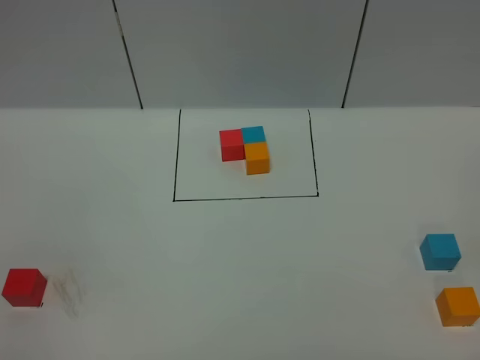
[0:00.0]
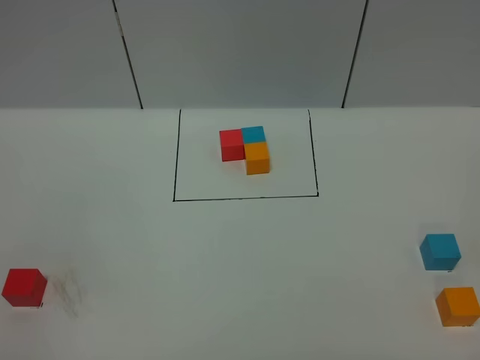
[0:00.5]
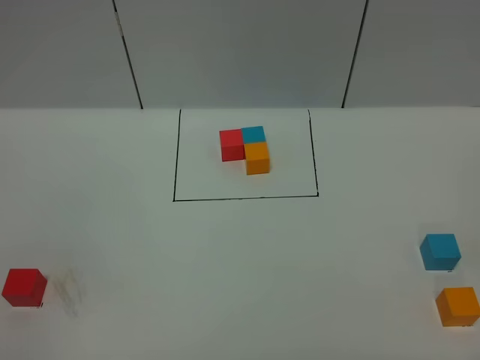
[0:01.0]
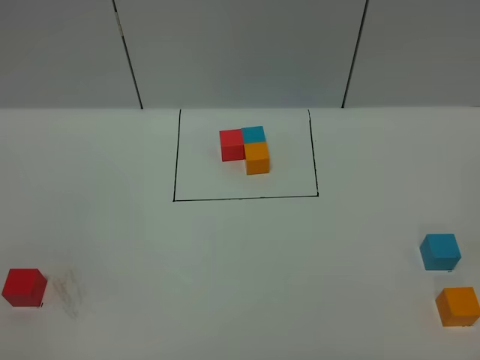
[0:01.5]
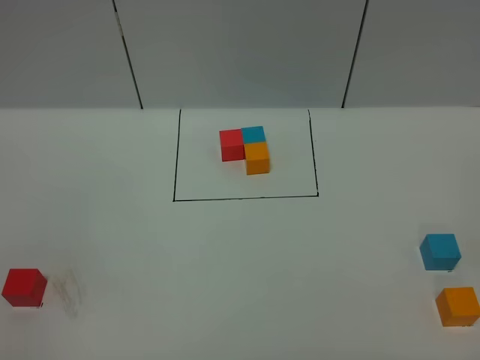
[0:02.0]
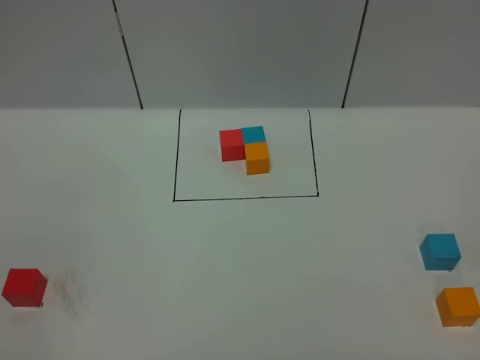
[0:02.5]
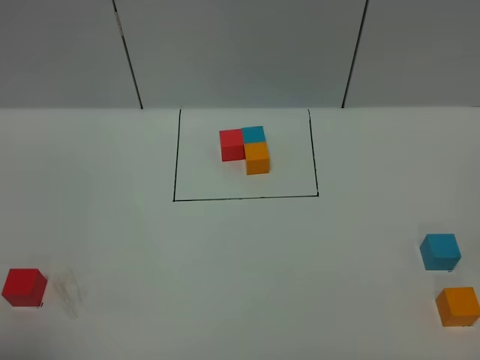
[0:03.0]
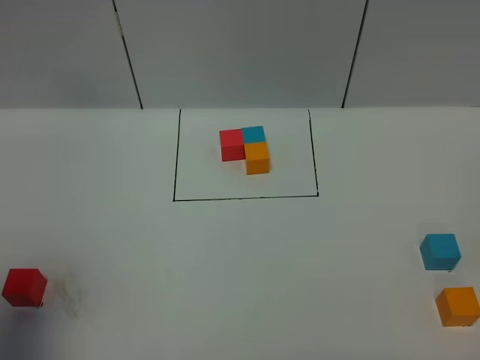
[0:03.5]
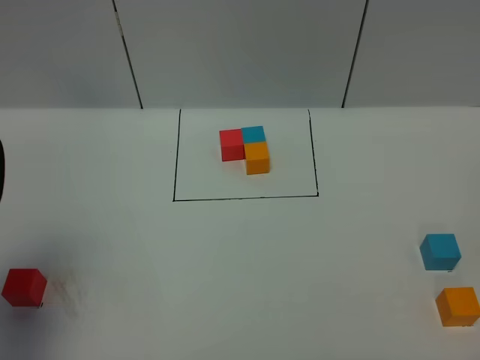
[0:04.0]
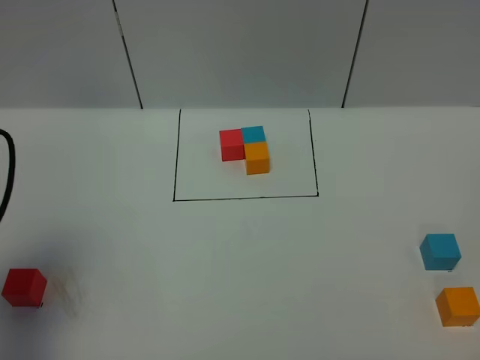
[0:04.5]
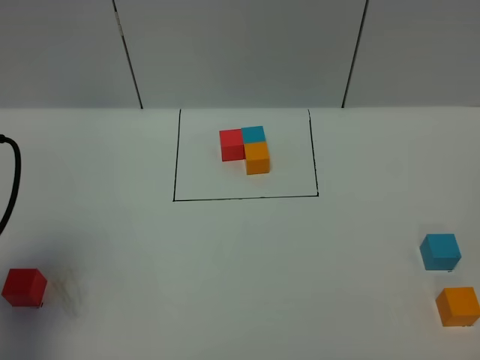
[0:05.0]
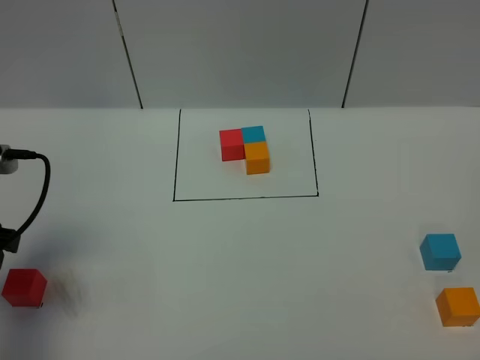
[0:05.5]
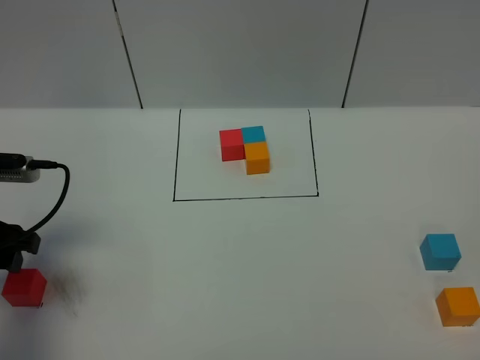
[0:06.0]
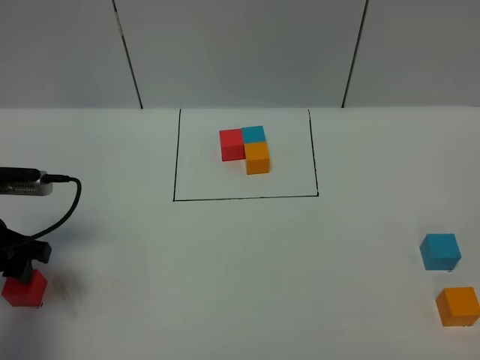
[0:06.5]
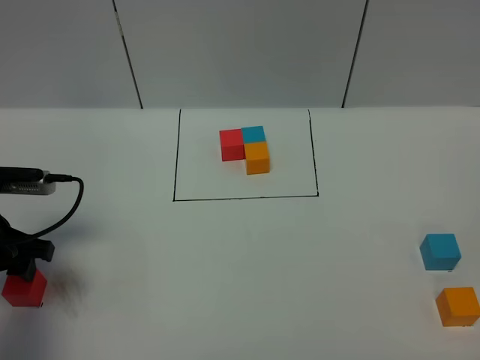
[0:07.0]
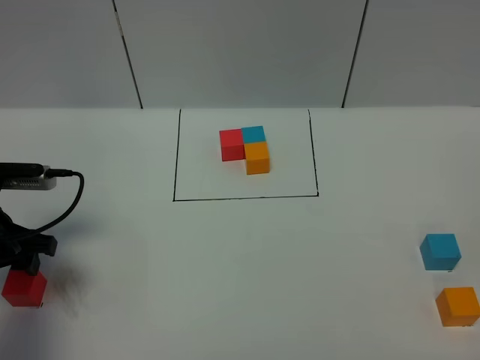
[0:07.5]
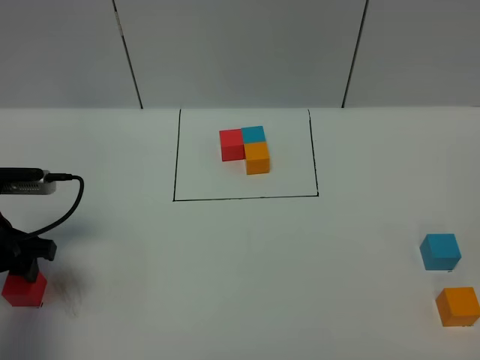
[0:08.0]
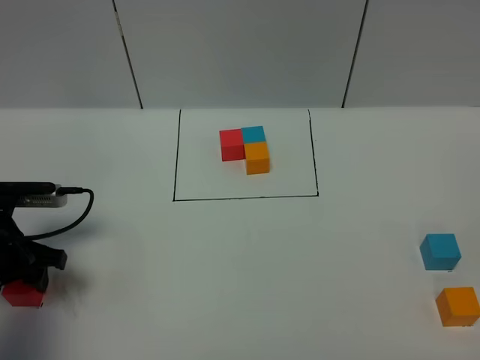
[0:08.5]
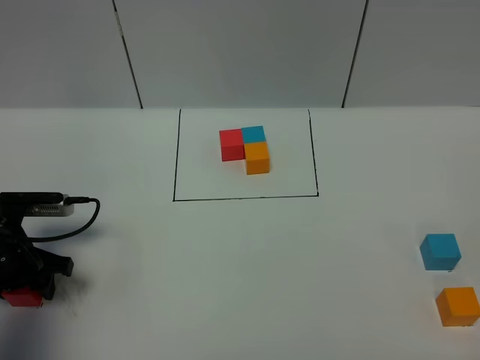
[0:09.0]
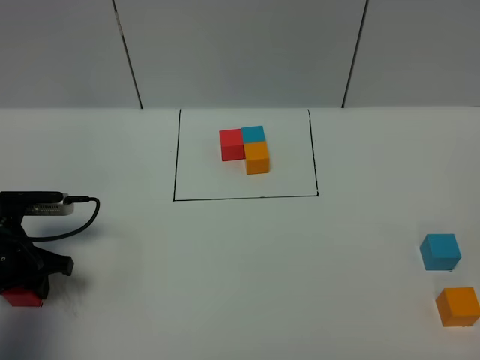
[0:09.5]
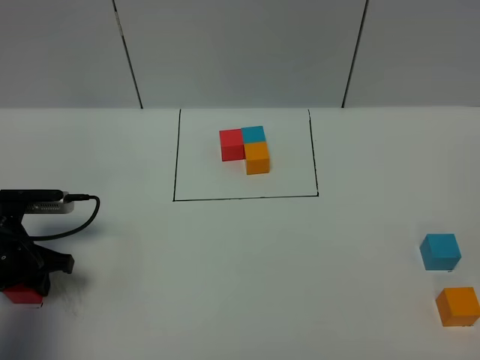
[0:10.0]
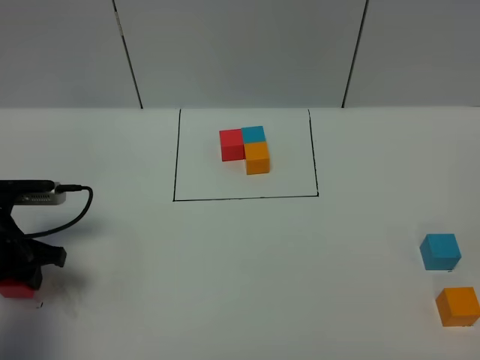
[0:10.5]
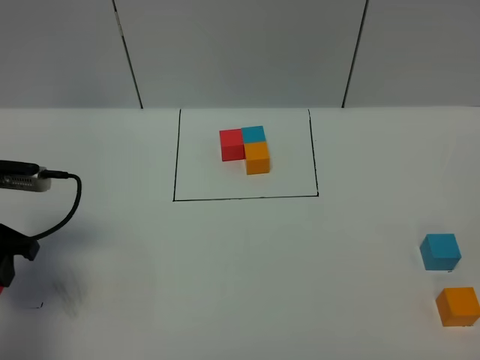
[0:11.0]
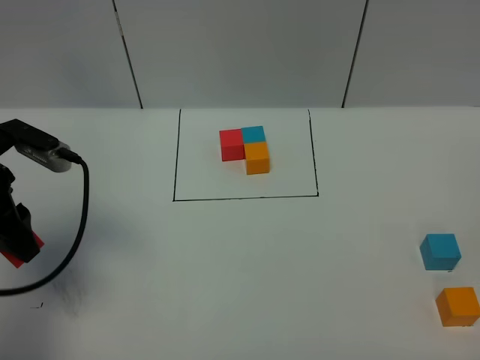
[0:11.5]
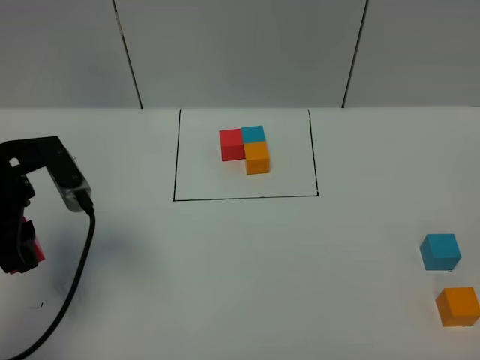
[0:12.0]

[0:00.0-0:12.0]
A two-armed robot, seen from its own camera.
Task of the whole recording: According to the building block template in front, assemble the scattered blocks together.
0:00.0 to 0:02.0: Both grippers stay put.
0:02.0 to 0:04.0: The left gripper is displaced forward by roughly 20 cm.
0:04.0 to 0:06.0: The left gripper shifts roughly 15 cm downward and forward.
0:06.0 to 0:08.0: The grippers stay close to where they were, moving slightly.
0:08.0 to 0:10.0: The left gripper moves downward, some 5 cm, and closes.
0:10.0 to 0:12.0: The left gripper goes roughly 15 cm upward.

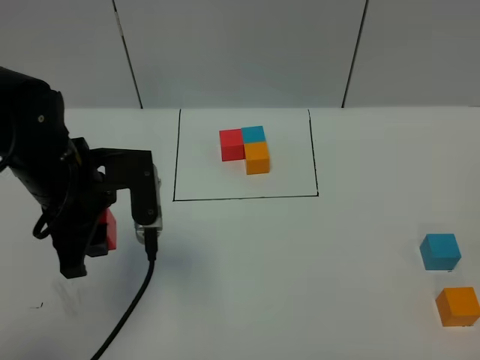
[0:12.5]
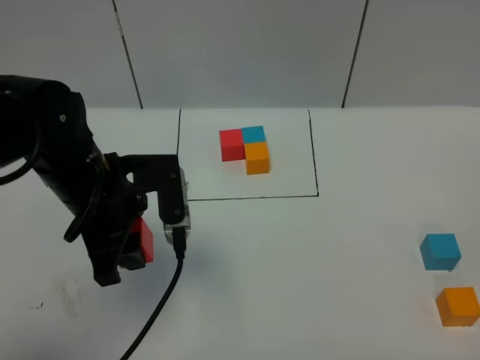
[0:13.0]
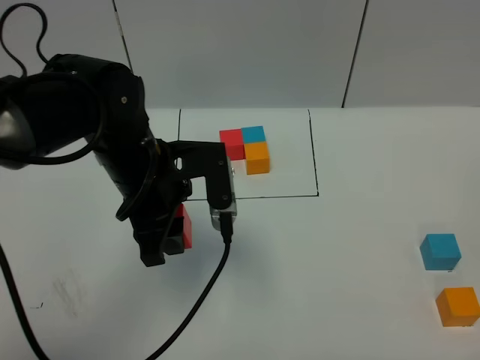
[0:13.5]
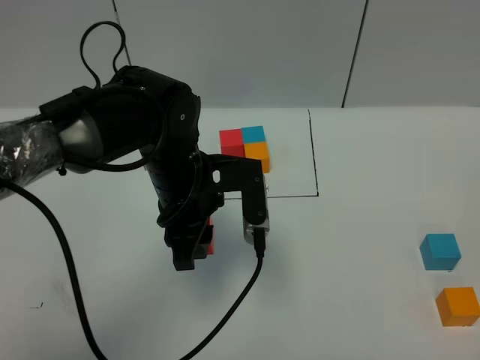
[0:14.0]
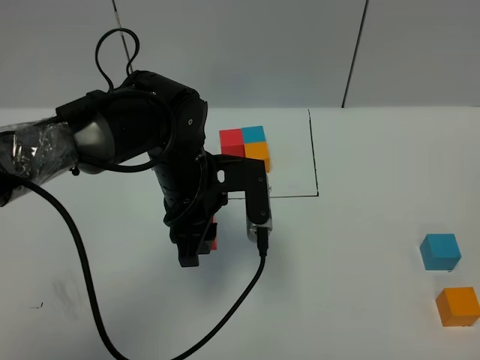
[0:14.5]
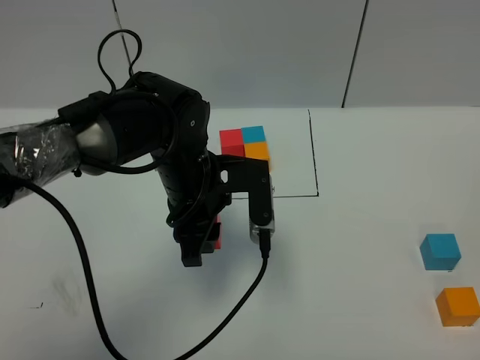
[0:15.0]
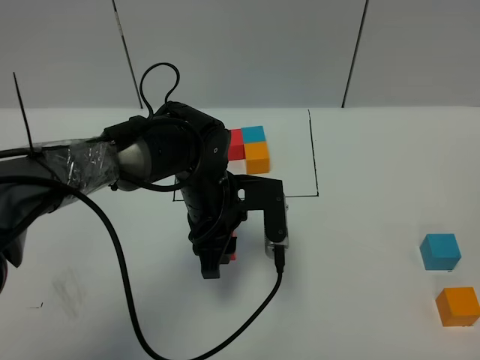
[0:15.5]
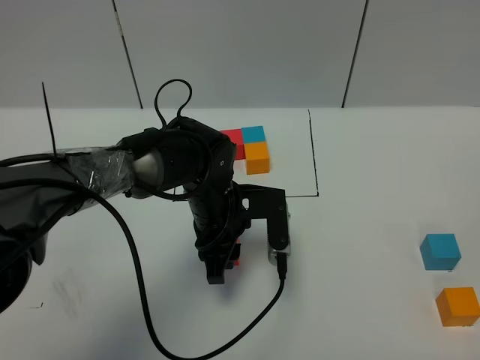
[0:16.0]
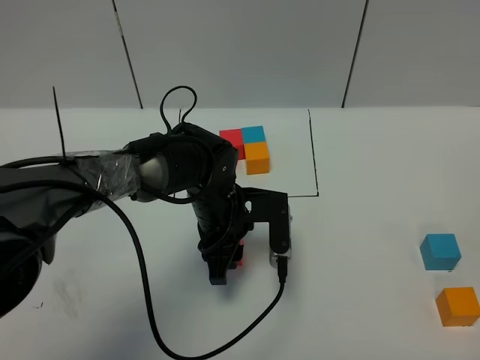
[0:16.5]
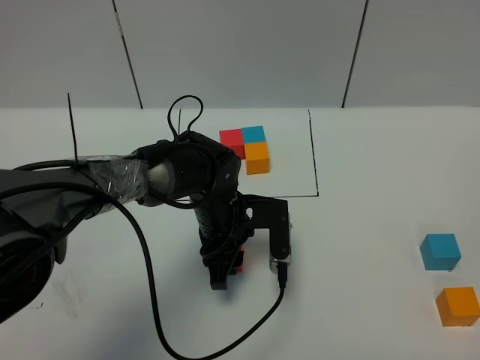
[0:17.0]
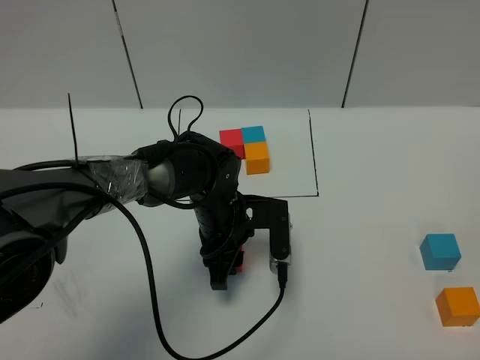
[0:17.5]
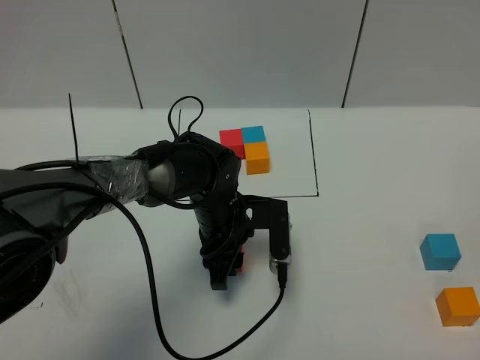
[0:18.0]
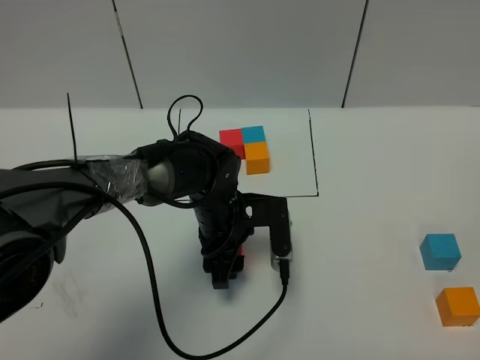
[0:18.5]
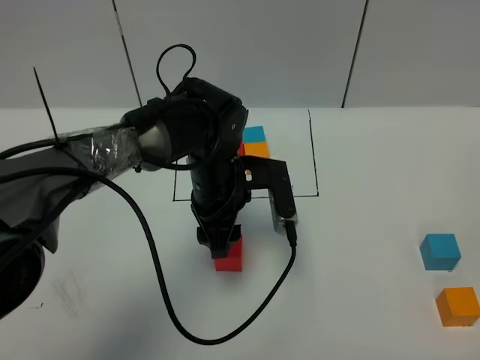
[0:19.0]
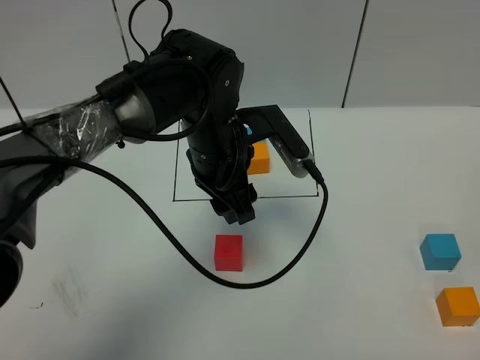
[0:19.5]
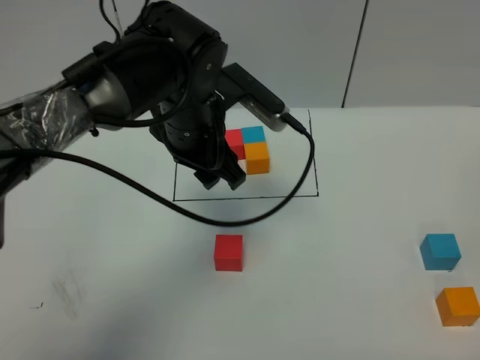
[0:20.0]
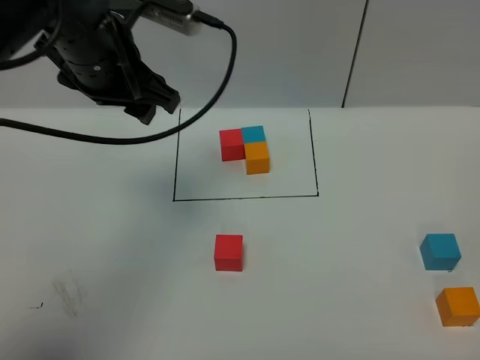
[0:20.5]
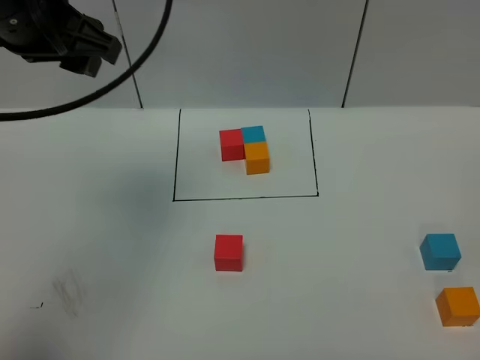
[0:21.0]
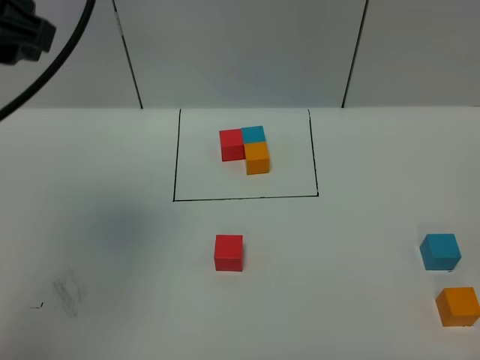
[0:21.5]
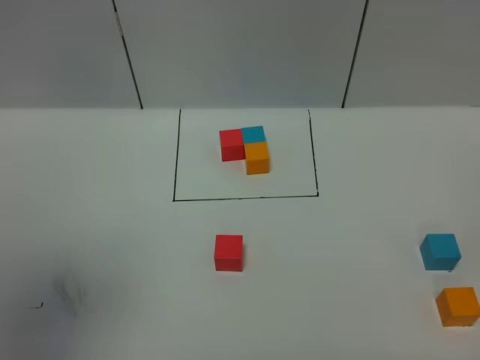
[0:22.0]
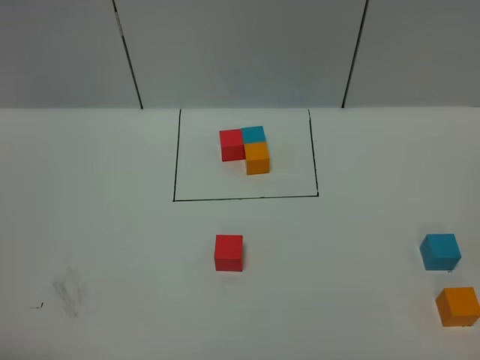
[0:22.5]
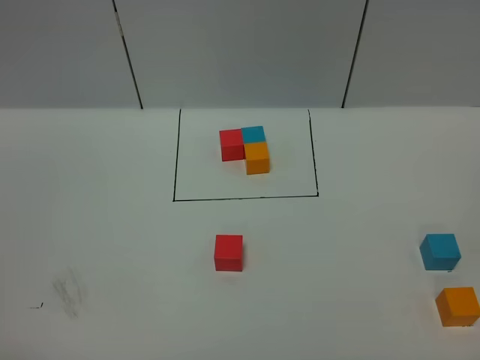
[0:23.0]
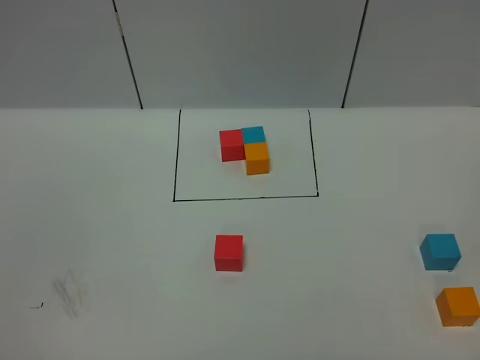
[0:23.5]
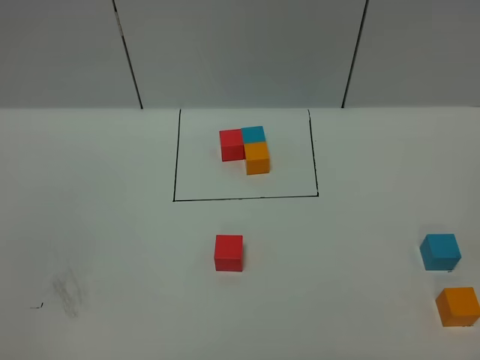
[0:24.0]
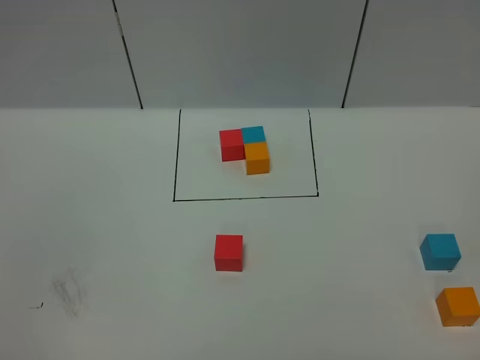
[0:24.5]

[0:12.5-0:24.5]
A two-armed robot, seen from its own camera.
Task of the whole recording: According to the building block template in front, assemble the scattered blocks together.
Step, 0:12.5 to 0:18.5: Put the red cube in the center of the table.
0:12.5 to 0:14.5: The left gripper goes roughly 10 cm to the right.
0:14.5 to 0:16.5: The left gripper goes roughly 10 cm downward.
0:16.5 to 0:18.5: The left gripper opens up.
0:18.5 to 0:20.5: The left gripper shifts about 25 cm upward and to the left.
0:20.5 to 0:22.5: The left gripper goes roughly 40 cm backward and to the left.

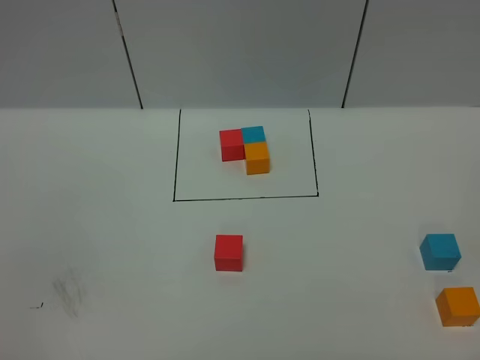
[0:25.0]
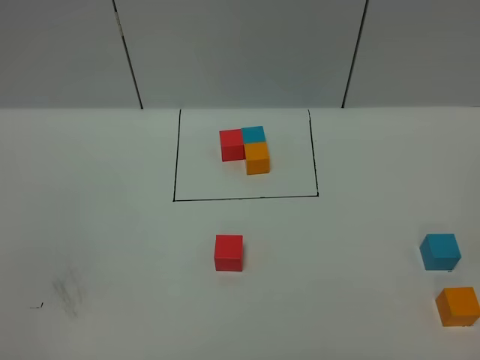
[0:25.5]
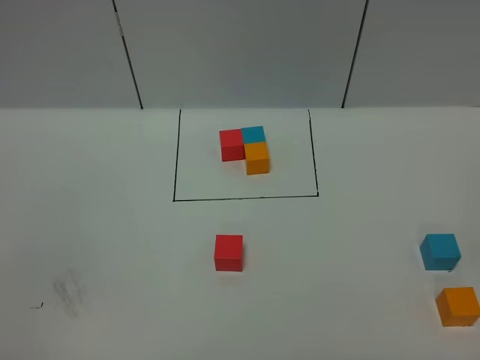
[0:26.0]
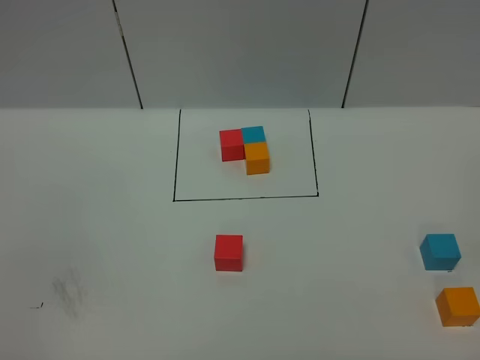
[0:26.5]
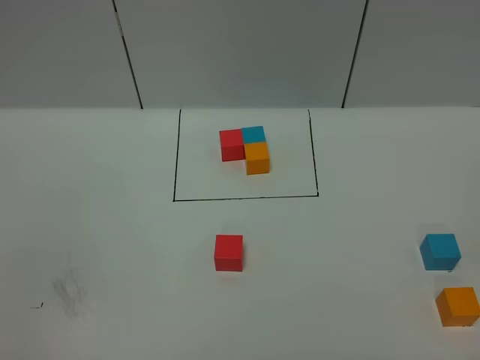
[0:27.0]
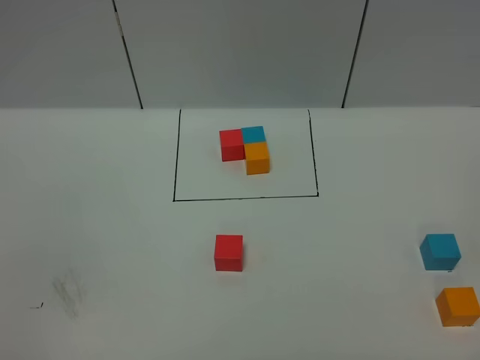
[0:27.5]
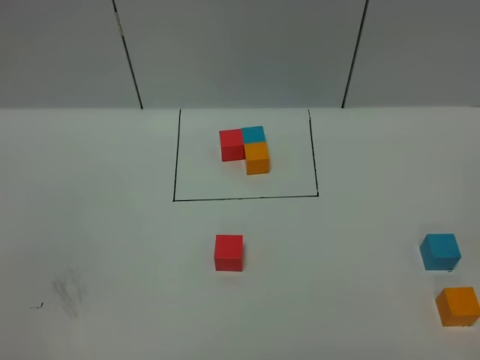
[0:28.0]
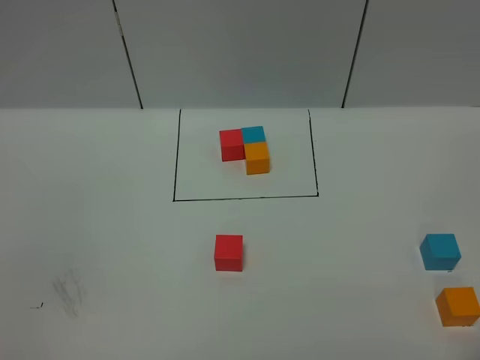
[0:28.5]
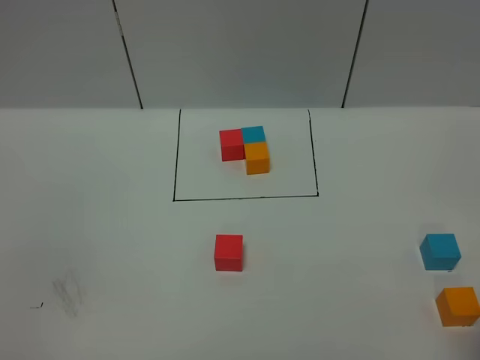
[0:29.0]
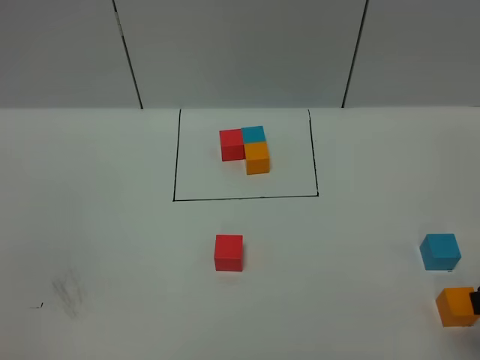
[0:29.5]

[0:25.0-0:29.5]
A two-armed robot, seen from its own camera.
Task of the whole recording: According to the building block template in front, assemble the scattered blocks together.
0:25.0 to 0:27.0: Both grippers stay about where they are.
0:27.0 to 0:29.5: The right gripper heads forward, covering approximately 15 cm.
